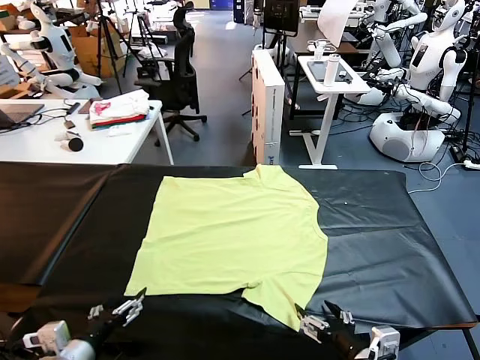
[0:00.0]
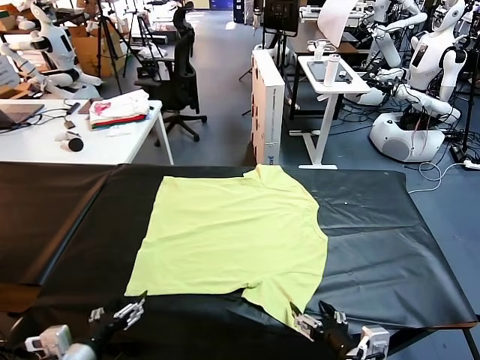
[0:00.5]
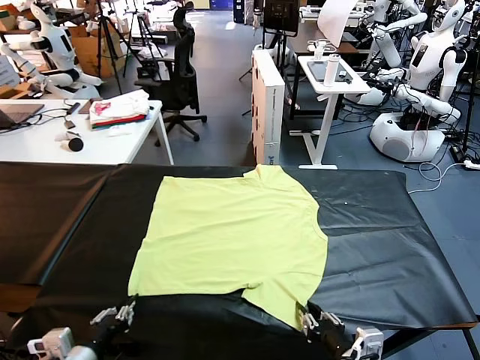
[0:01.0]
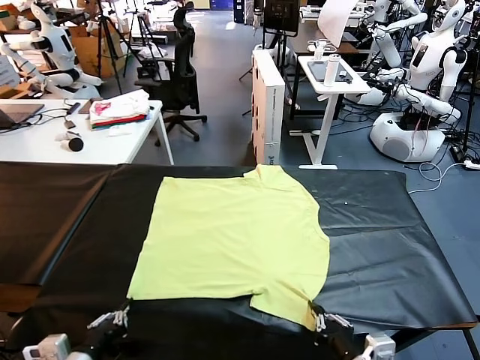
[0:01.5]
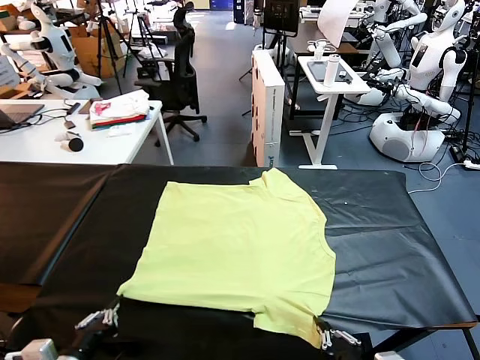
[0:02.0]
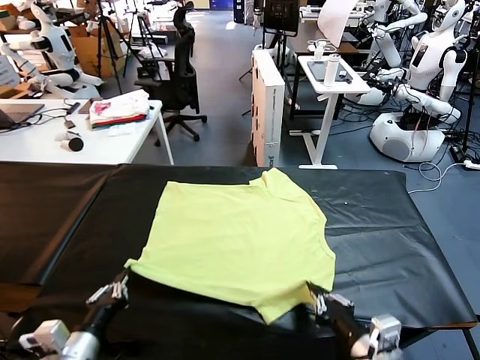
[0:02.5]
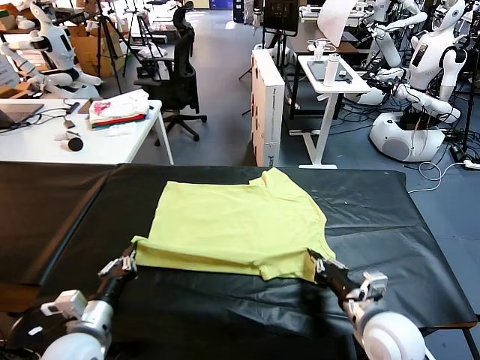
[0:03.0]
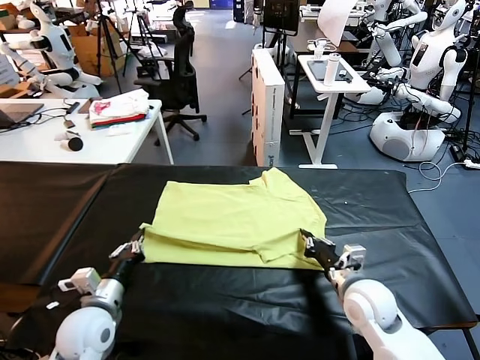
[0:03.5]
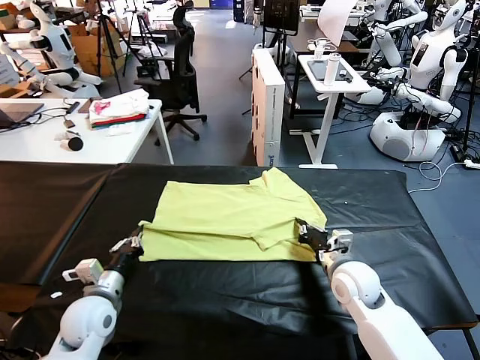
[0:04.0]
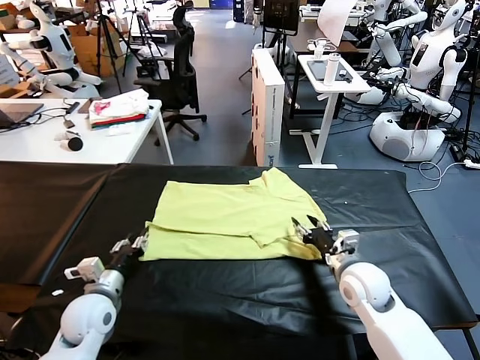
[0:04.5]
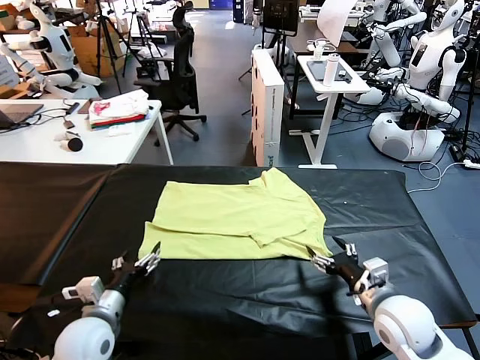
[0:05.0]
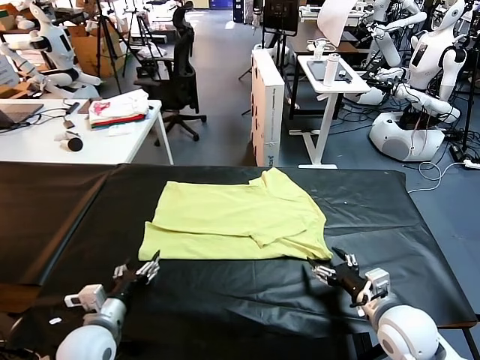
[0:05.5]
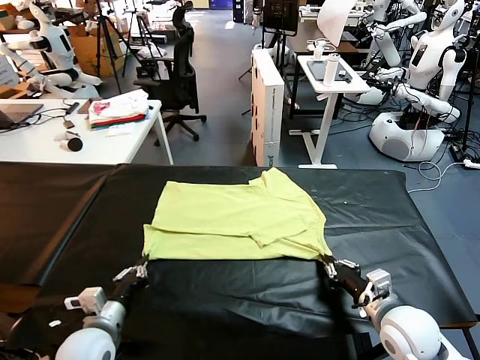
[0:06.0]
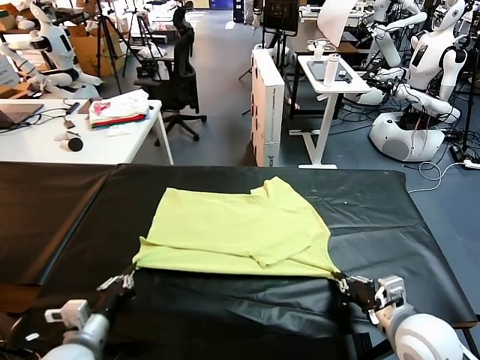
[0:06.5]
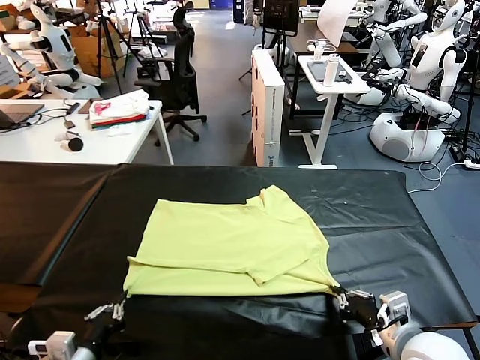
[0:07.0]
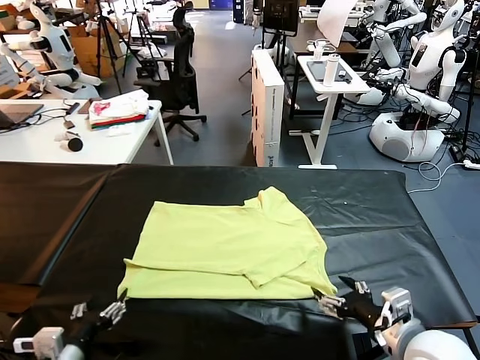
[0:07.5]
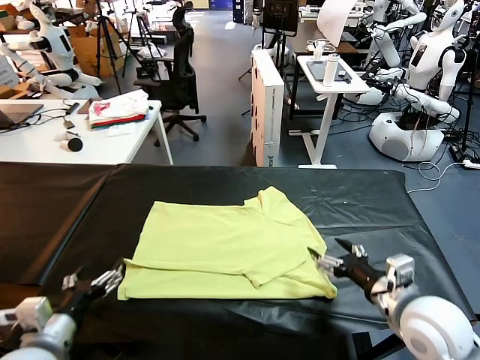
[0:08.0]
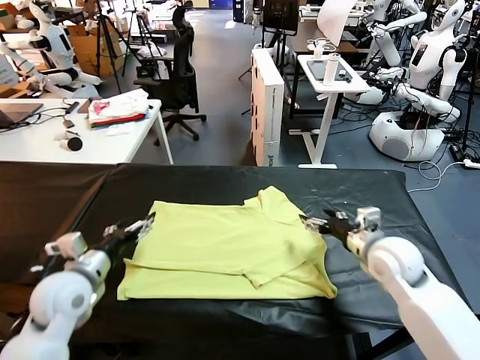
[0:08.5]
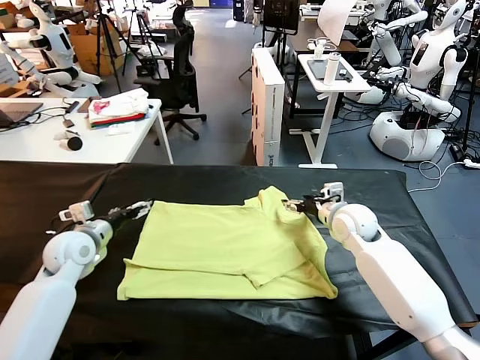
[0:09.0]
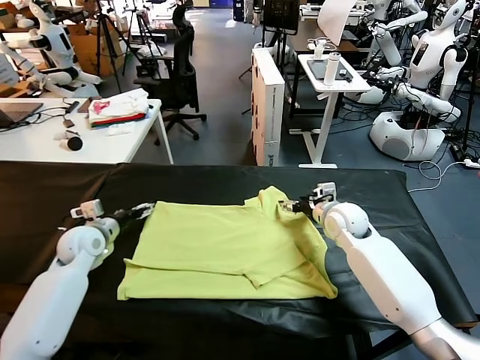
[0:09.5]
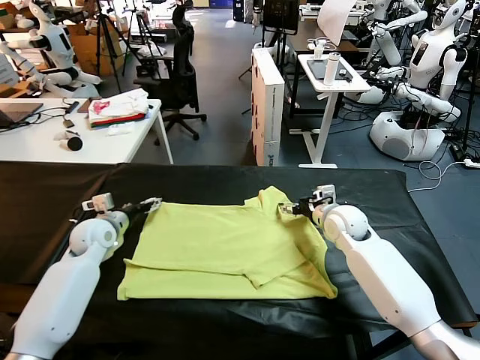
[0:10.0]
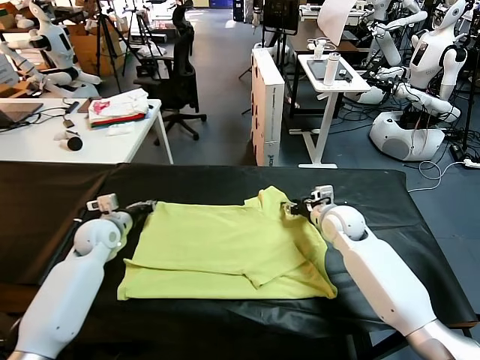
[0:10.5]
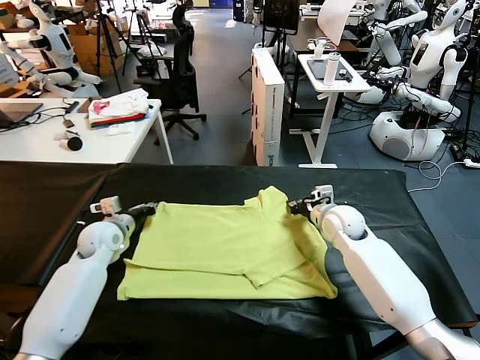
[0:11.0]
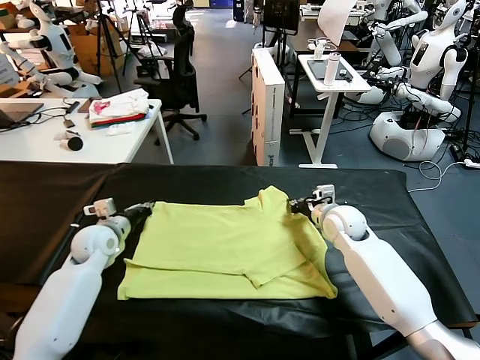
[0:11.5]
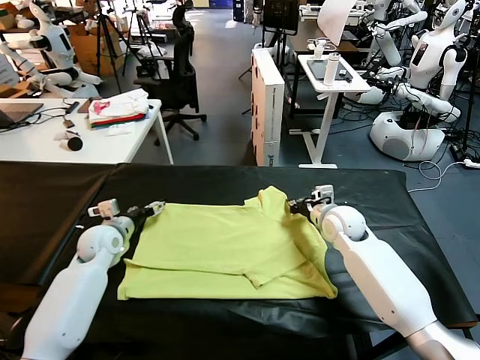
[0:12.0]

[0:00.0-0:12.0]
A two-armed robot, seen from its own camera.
Task of the whole recording: fold and organize the clothes.
Step, 0:00.0 to 0:01.5: use both grippers simultaneously to clamp the lower edge of the clothing fabric.
Step, 0:02.0 to 0:04.5: use both grippers to drag the lower edge of the fabric forward and fold it over the upper edge.
Step, 0:05.0 to 0:07.5: Drag the clothes downward with both gripper.
0:02.0 to 0:04.0: Both grippers travel together forward, roughly 20 cm.
0:04.0 to 0:06.0: The right gripper shifts roughly 15 cm backward and to the right, and opens and closes again, while the left gripper heads backward, covering approximately 5 cm, and opens, then closes again.
0:06.0 to 0:08.0: The left gripper goes about 10 cm upward, and opens, while the right gripper goes approximately 10 cm forward and upward, and opens up.
0:08.0 to 0:10.0: The two grippers go approximately 25 cm forward.
0:10.0 to 0:12.0: The left gripper closes, then opens again, while the right gripper closes up.

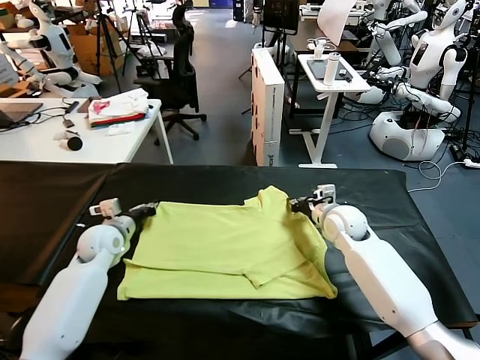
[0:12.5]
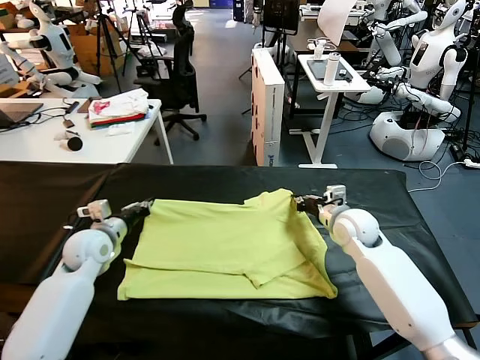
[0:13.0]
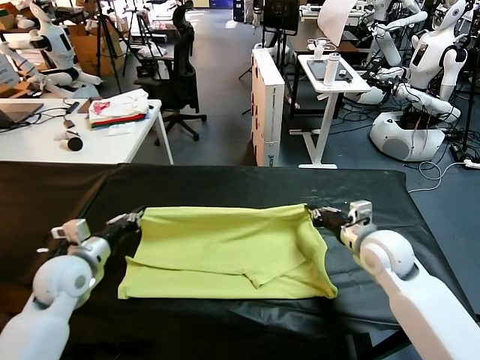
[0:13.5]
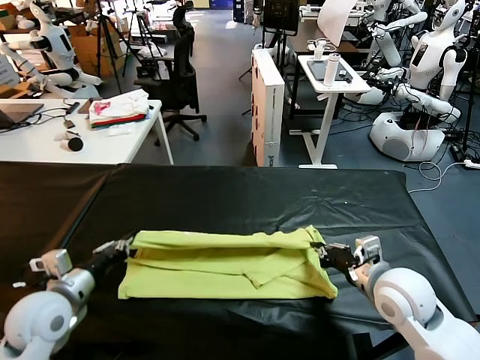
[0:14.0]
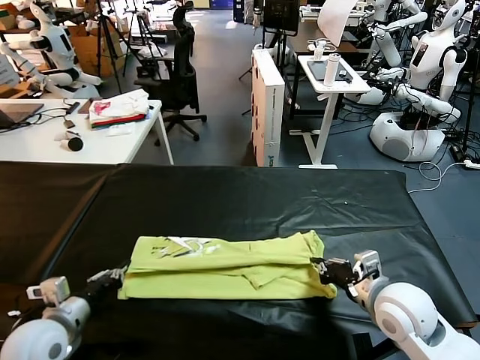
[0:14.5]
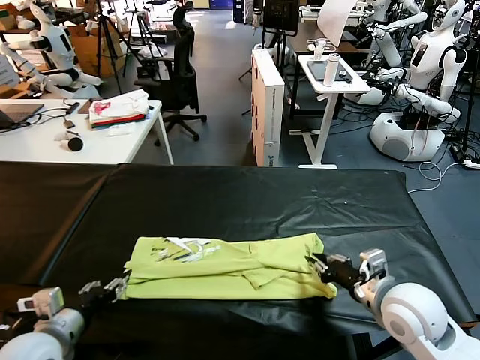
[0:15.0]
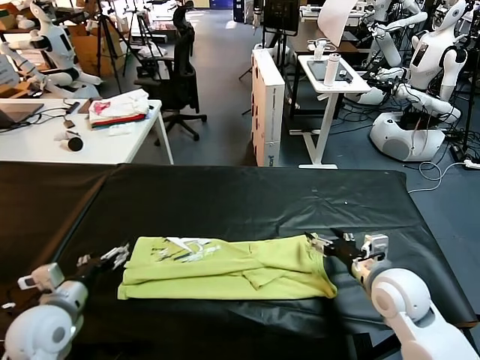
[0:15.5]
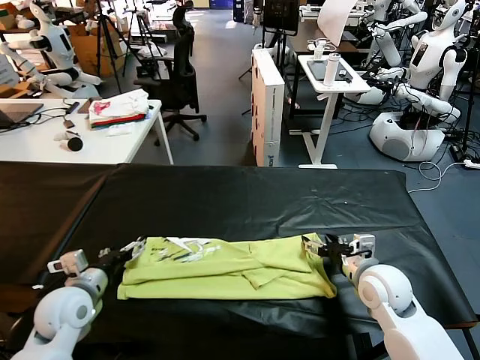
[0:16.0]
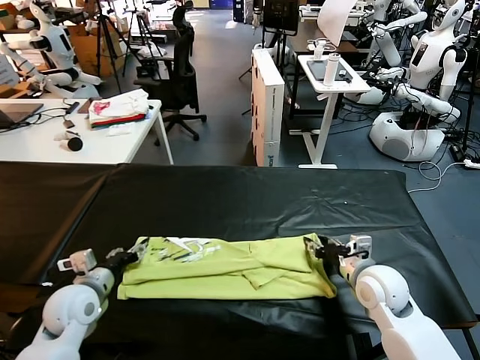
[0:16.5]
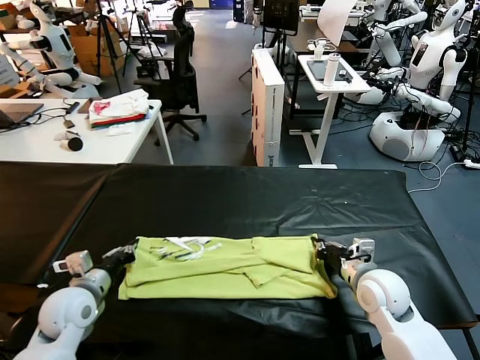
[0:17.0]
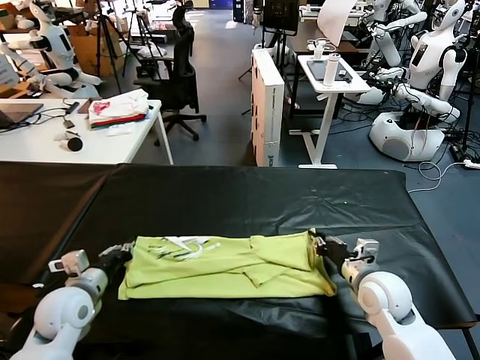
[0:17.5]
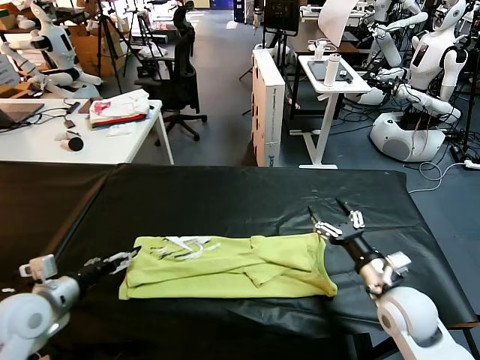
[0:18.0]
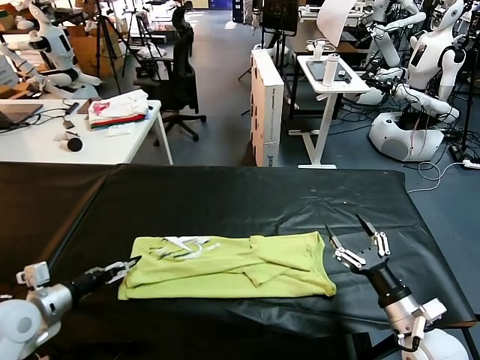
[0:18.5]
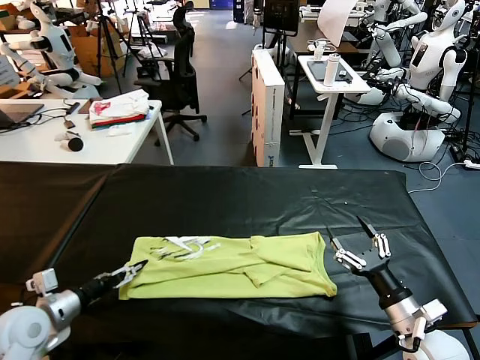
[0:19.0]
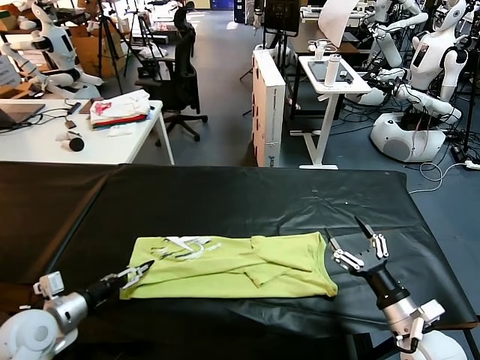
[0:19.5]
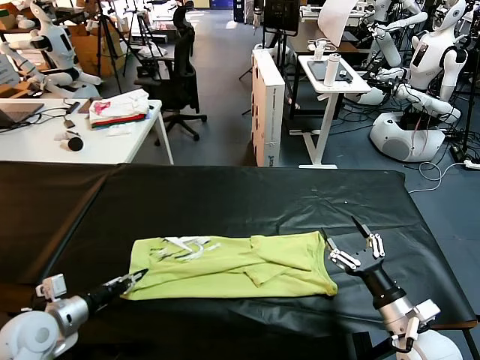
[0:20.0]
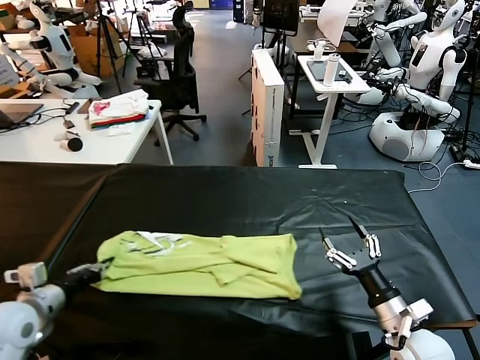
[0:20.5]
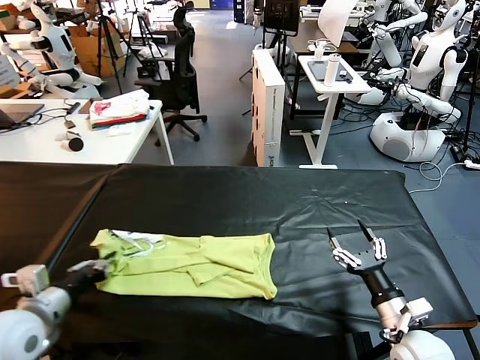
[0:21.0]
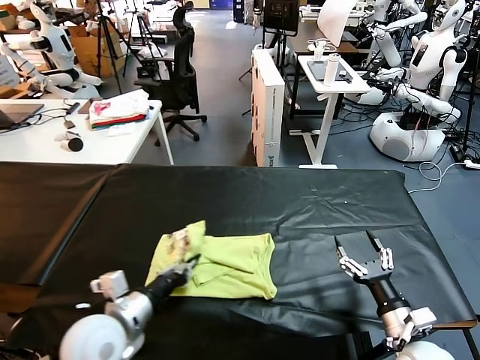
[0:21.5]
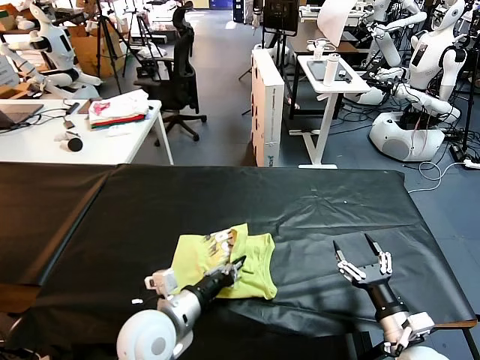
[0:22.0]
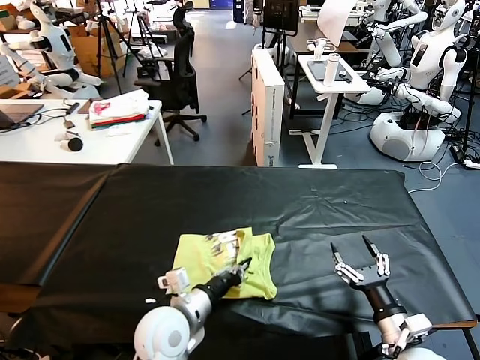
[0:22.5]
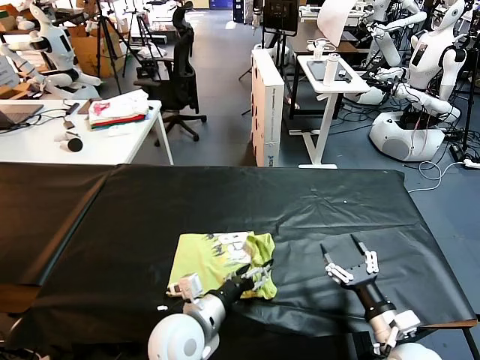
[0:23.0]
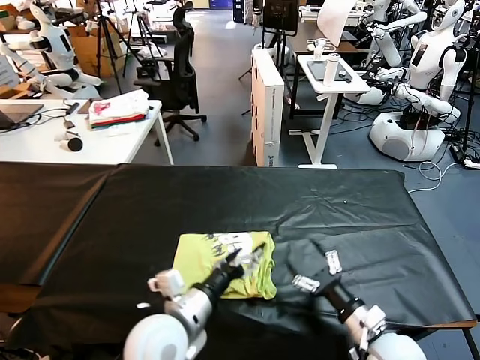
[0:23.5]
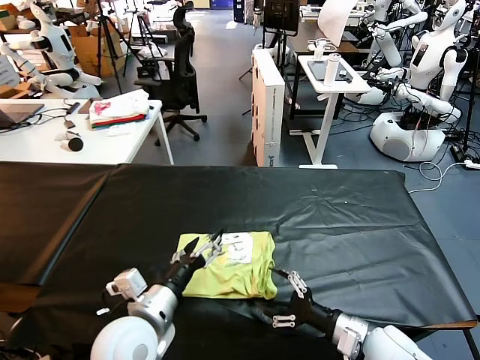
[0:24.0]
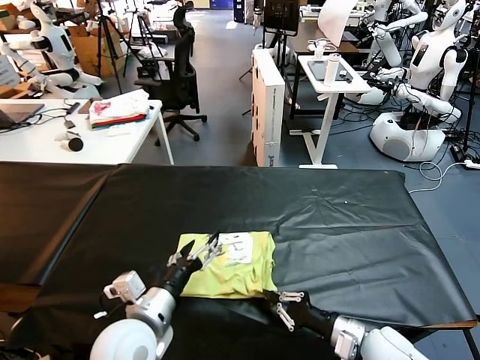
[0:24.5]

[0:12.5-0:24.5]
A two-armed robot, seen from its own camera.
Task of the whole recording: fold and organize the clothes.
Step, 0:13.0 to 0:15.0: use both grippers to drag the upper edge of the fabric backward and fold it over the lower edge.
Step, 0:15.5 to 0:20.0: use the left gripper to clamp the left edge of the fabric.
Step, 0:20.5 to 0:23.0: use the left gripper to drag the left edge of the fabric to the left and folds it over the right edge.
0:12.5 to 0:14.5: The grippers both shift backward by about 20 cm.
0:14.5 to 0:16.5: Both grippers move forward, approximately 5 cm. The right gripper opens and closes again. The left gripper opens up.
0:16.5 to 0:18.5: The right gripper shifts about 15 cm backward and to the right, and opens up. The left gripper travels to the left by roughly 10 cm, and opens.
0:18.5 to 0:20.5: The left gripper closes its fingers.
0:20.5 to 0:22.5: The left gripper is displaced to the right by approximately 25 cm.
0:22.5 to 0:24.5: The left gripper travels upward by approximately 5 cm, and opens up. Meanwhile the right gripper shifts by some 5 cm, and closes its fingers.

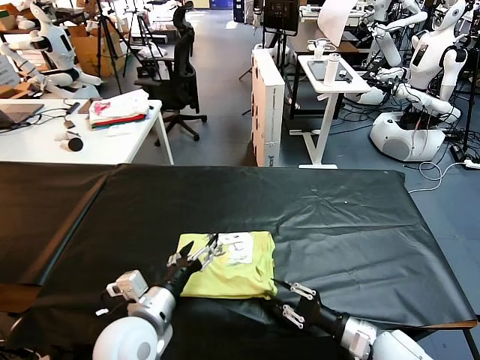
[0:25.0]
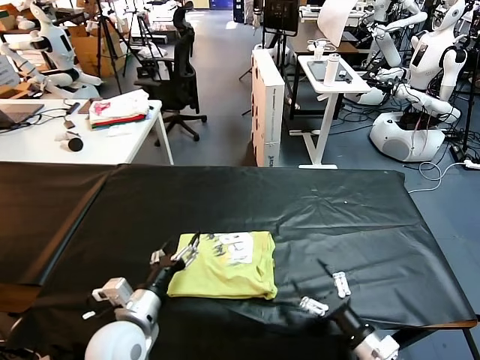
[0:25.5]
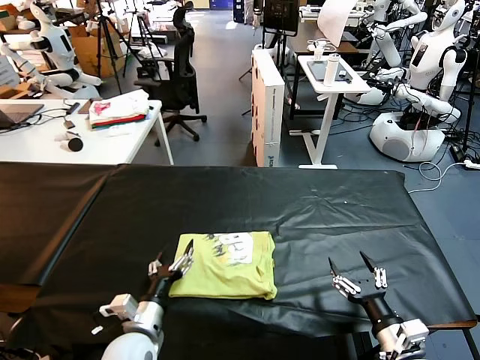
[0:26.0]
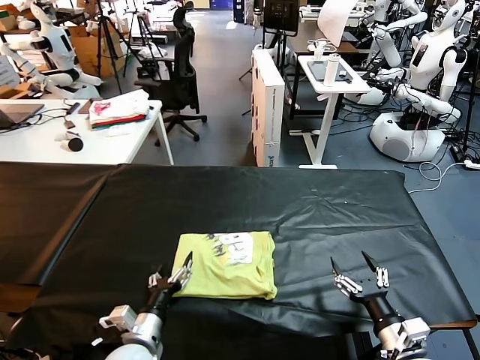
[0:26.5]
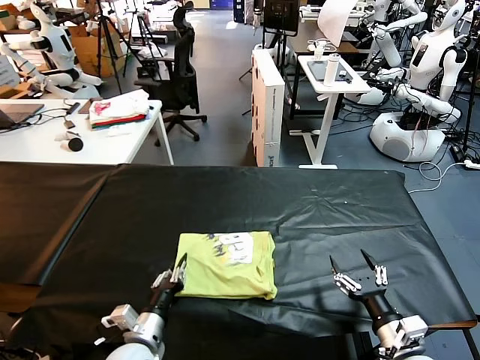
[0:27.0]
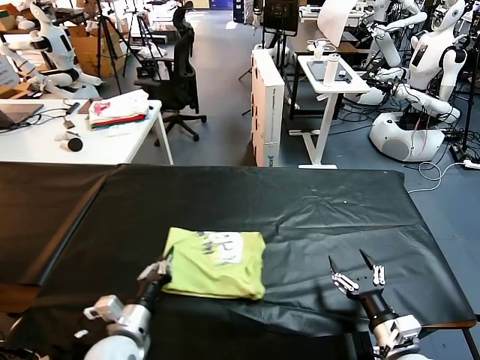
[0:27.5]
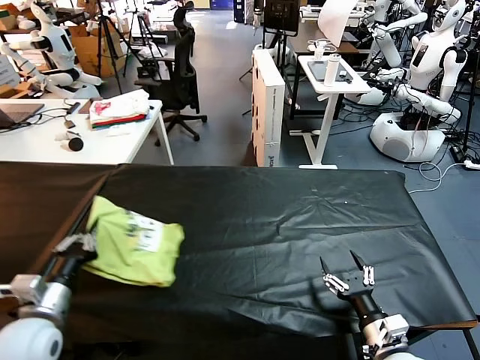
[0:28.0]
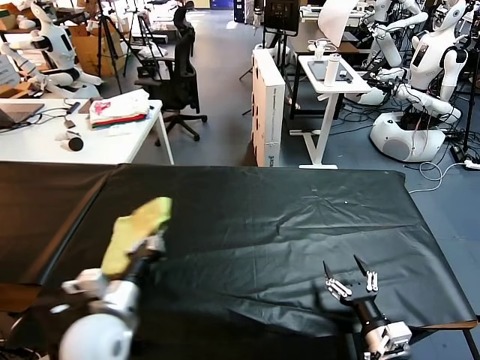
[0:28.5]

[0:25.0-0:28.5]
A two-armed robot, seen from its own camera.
Task of the whole recording: fold and organize the clothes.
0:25.0 to 0:27.0: The right gripper ends up some 5 cm from where it was, and opens up, while the left gripper goes about 10 cm downward, and closes its fingers.
0:27.0 to 0:28.5: The left gripper heads upward, covering some 15 cm.
